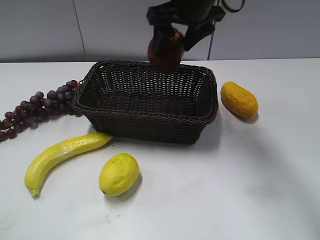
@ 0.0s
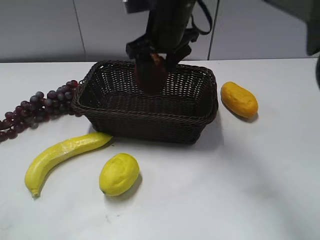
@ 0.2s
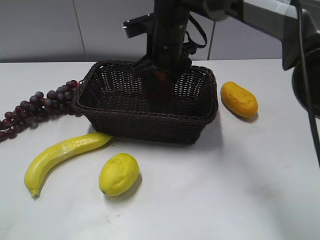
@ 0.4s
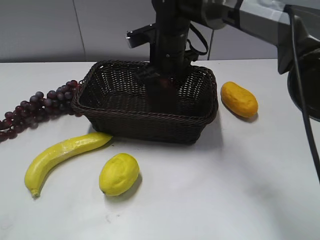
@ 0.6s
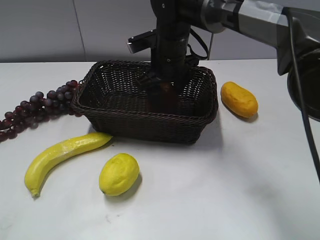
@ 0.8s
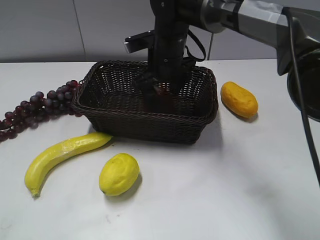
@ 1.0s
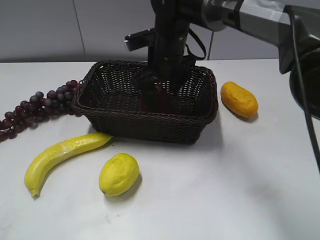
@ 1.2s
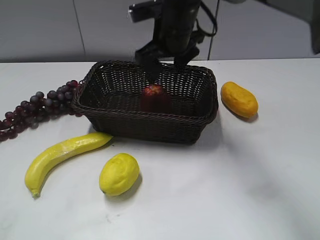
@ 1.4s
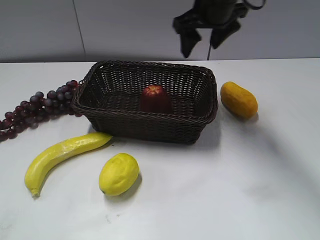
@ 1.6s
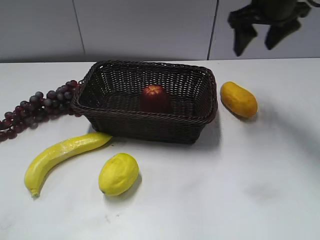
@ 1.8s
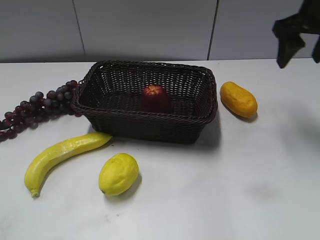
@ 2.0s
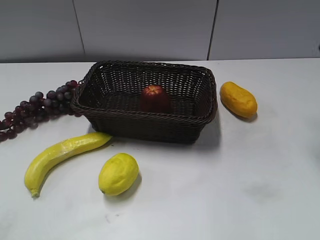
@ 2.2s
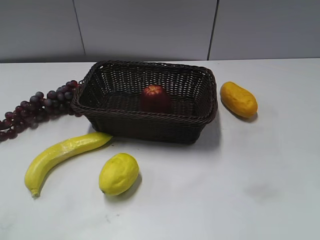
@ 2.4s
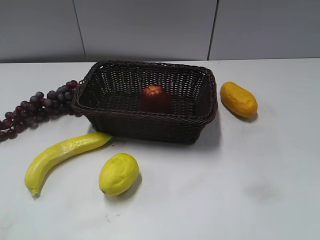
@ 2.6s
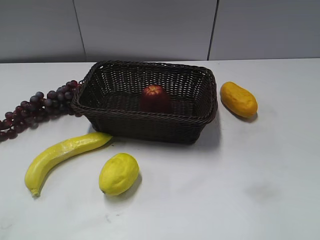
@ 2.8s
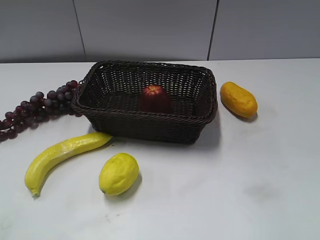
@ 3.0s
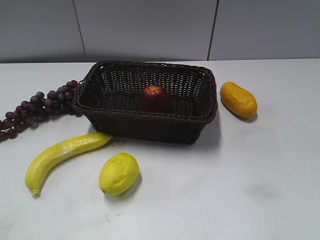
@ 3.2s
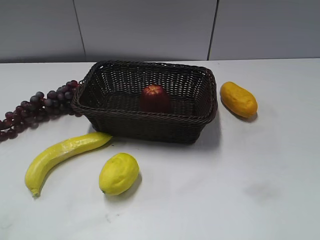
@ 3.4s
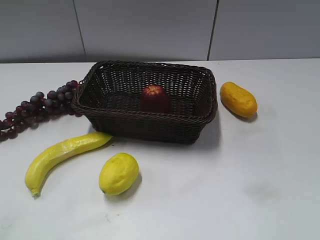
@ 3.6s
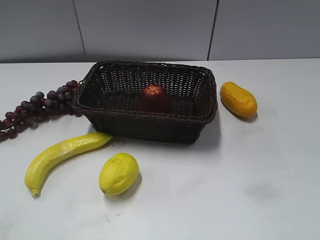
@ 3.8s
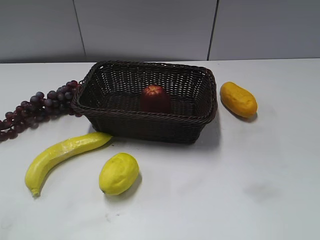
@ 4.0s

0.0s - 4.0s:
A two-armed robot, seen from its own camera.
0.0s - 1.4s: The right gripper opens its fingers.
1.4s - 2.6s: The right gripper goes some 35 cm to the right and backward.
